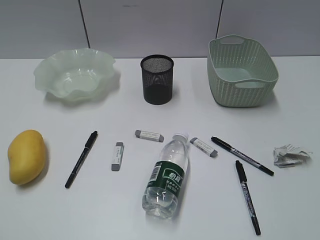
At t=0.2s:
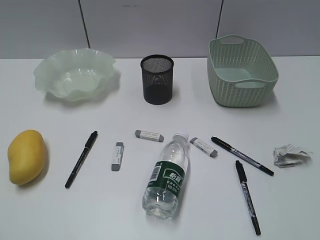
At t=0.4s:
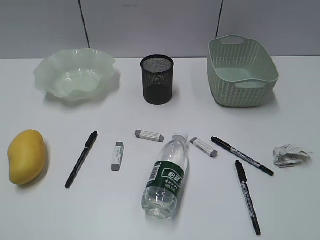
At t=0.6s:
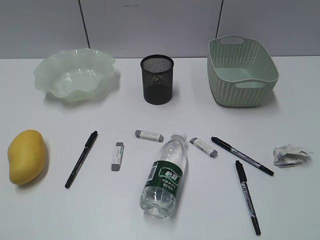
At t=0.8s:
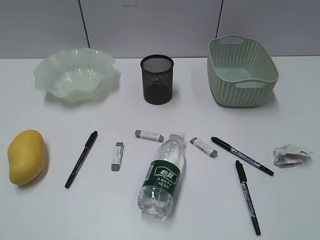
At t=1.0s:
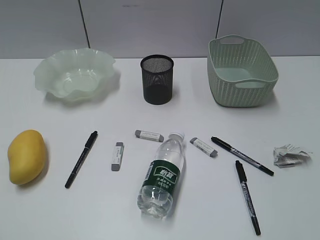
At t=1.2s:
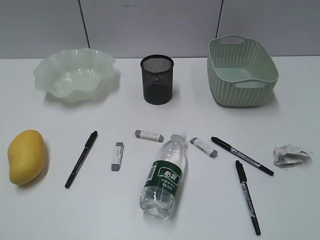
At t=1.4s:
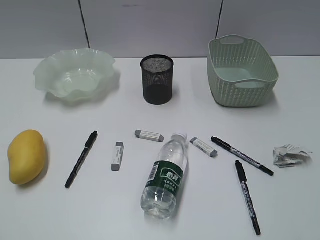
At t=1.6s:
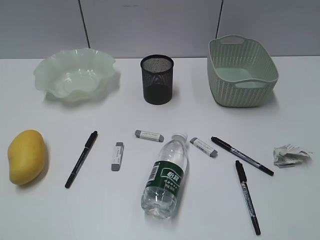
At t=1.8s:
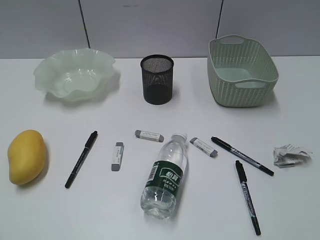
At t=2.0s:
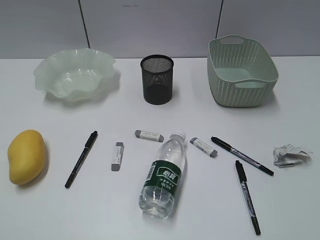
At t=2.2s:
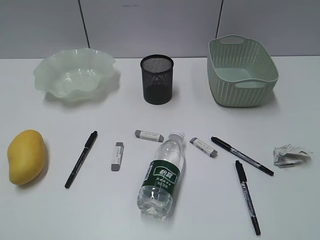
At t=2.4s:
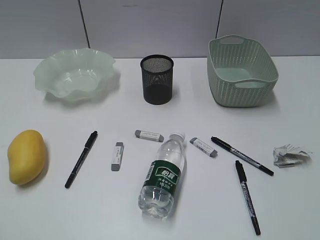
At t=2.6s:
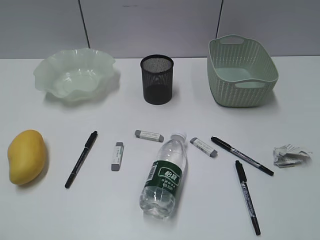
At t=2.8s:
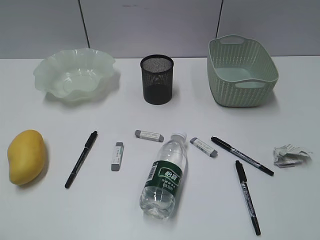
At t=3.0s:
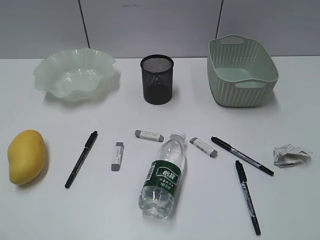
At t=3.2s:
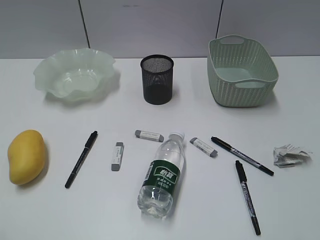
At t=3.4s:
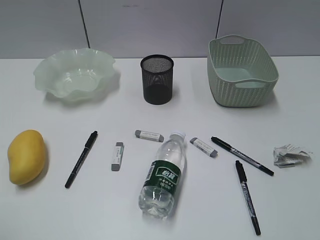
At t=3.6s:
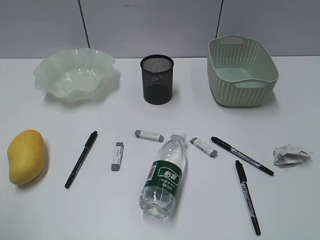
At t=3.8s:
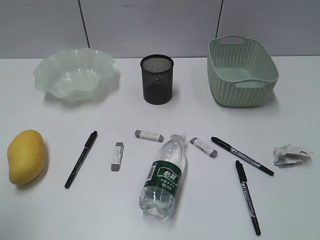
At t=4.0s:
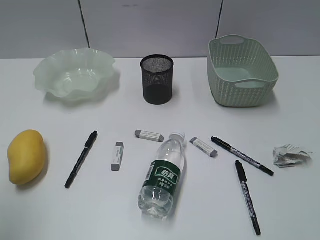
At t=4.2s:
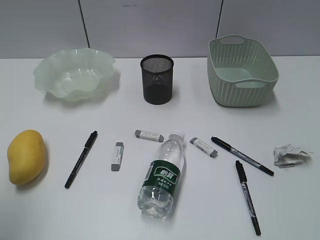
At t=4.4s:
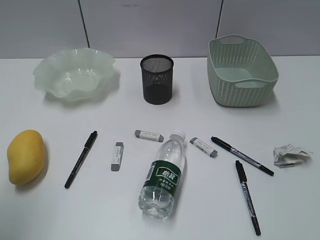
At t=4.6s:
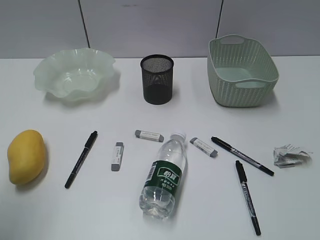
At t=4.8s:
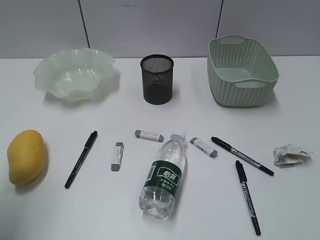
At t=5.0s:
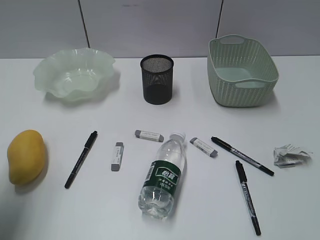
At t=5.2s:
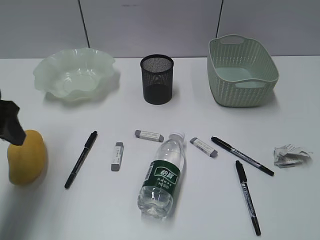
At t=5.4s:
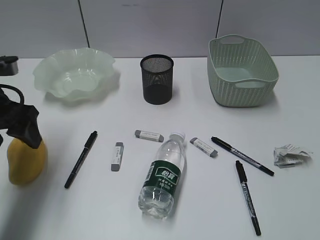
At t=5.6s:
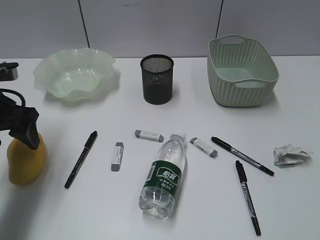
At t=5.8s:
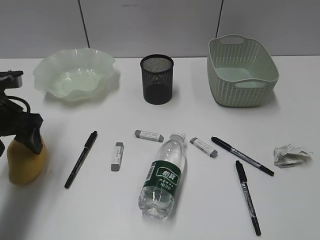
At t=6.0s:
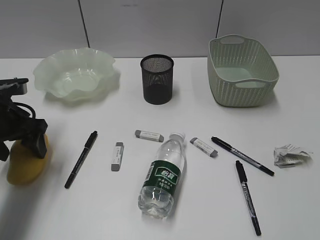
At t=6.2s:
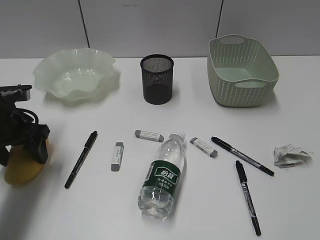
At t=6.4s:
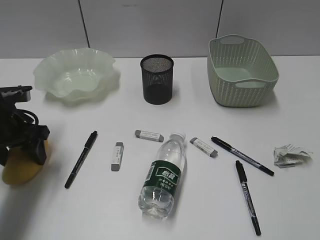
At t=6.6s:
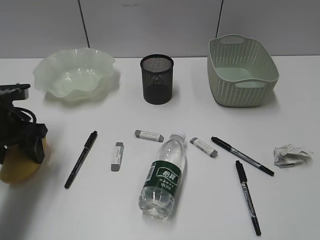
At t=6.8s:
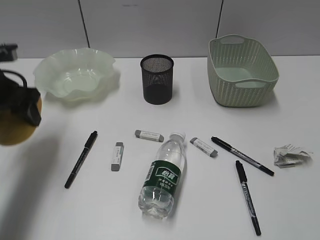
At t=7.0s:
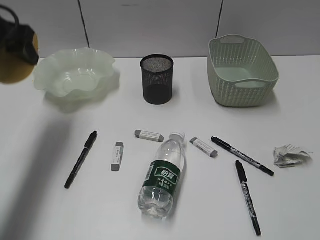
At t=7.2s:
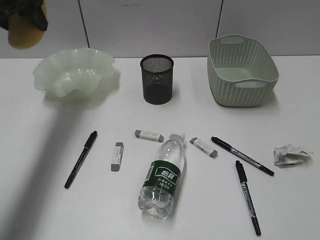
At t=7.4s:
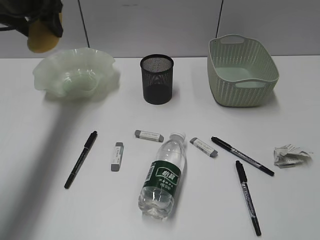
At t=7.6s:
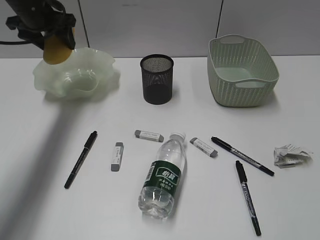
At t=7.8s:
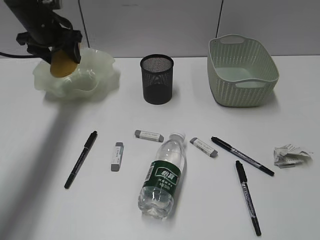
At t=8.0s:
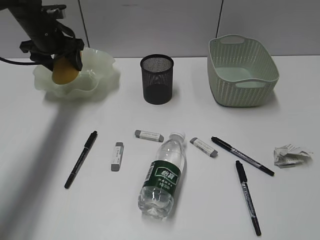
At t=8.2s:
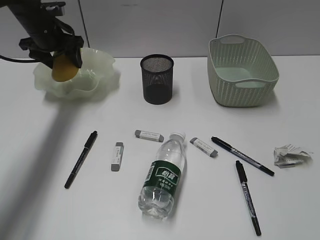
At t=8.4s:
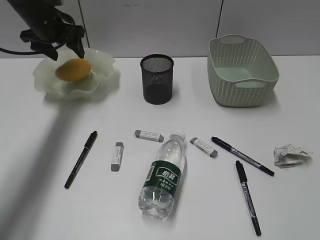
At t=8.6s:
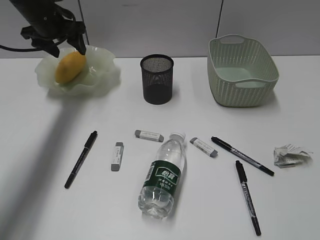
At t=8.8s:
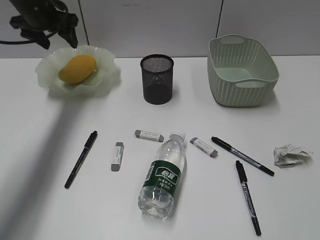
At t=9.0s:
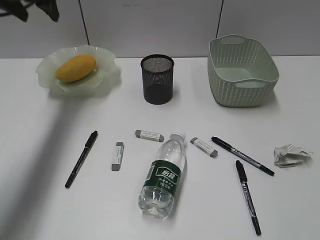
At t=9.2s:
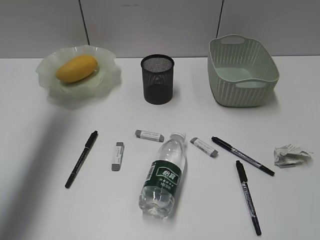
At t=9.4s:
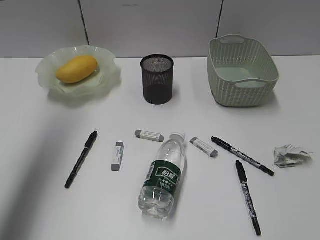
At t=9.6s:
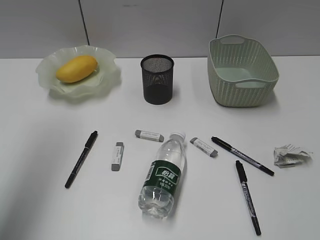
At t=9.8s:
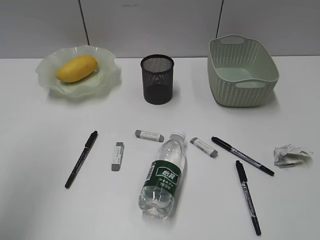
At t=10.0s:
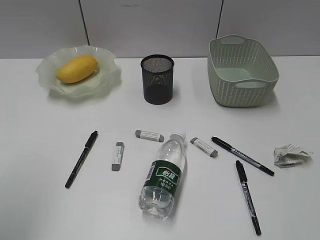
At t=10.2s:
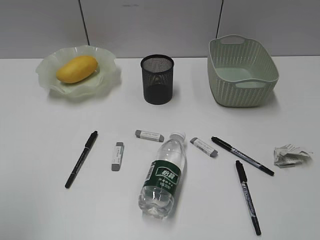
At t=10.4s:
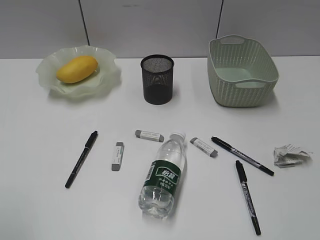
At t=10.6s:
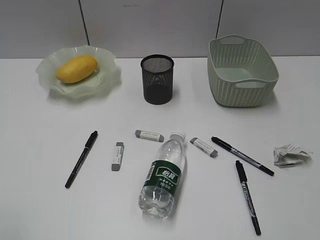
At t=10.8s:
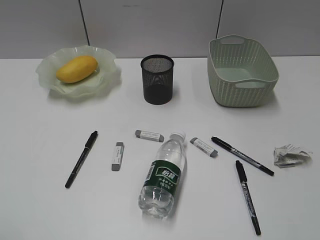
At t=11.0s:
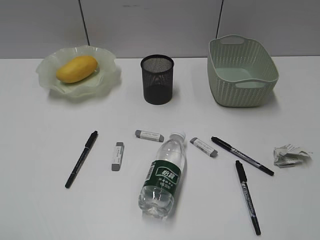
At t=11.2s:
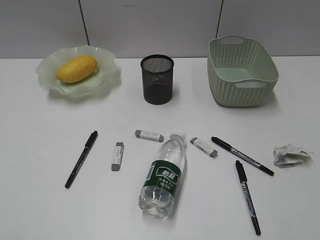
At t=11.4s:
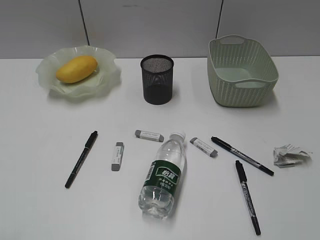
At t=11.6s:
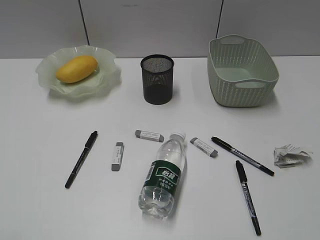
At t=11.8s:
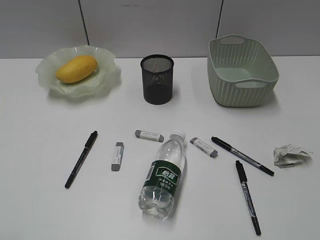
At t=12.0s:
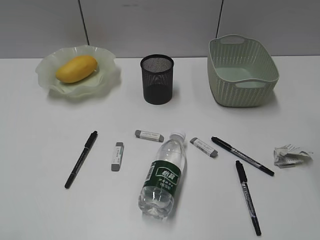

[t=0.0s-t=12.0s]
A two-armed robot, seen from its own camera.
Step, t=5.2s to t=6.4s: Grasp the mango with left gripper.
Step, t=6.6s to t=8.6s: Place the mango in the plate with left gripper.
t=1.6s to t=3.0s: The left gripper opens up.
t=3.0s to t=4.4s: The left gripper goes approximately 15 cm forward.
t=4.4s to t=6.0s: The left gripper goes about 25 cm forward and downward.
t=6.0s to t=7.6s: The left gripper moves forward and upward, some 20 cm.
t=7.6s to t=9.0s: The left gripper goes roughly 10 cm upward.
t=9.0s to t=10.4s: The left gripper moves backward, some 40 cm.

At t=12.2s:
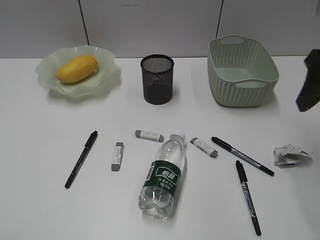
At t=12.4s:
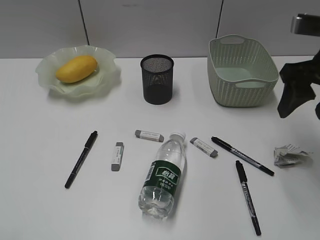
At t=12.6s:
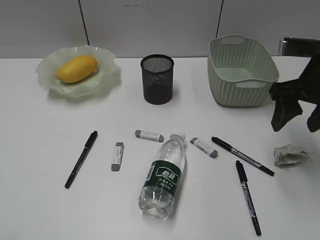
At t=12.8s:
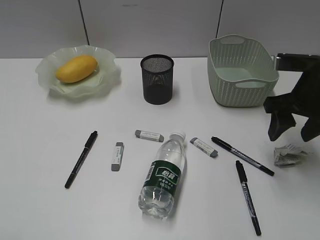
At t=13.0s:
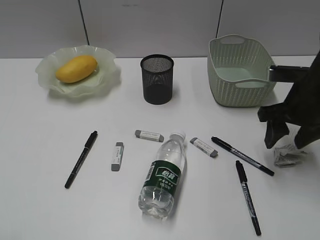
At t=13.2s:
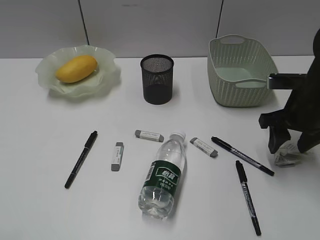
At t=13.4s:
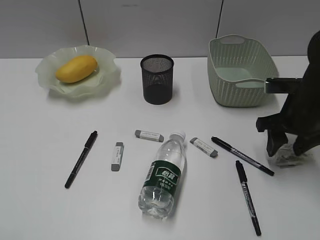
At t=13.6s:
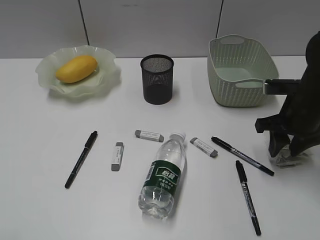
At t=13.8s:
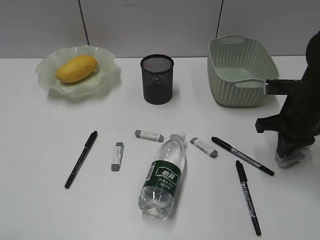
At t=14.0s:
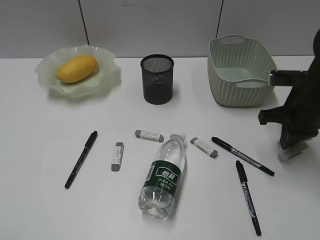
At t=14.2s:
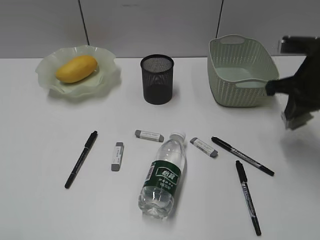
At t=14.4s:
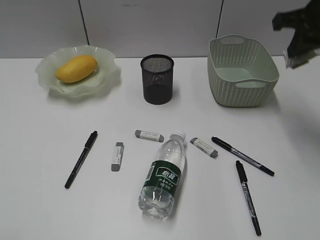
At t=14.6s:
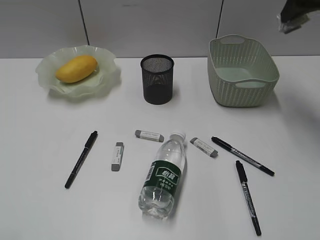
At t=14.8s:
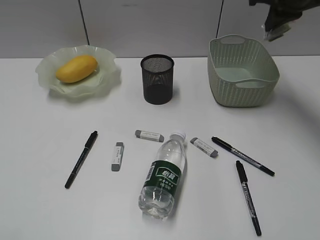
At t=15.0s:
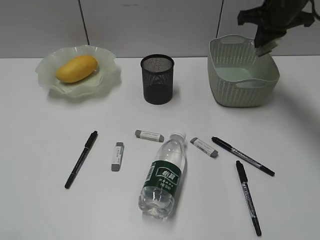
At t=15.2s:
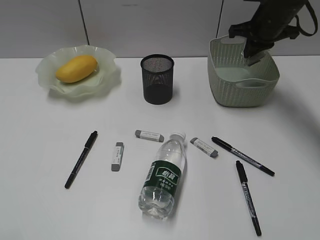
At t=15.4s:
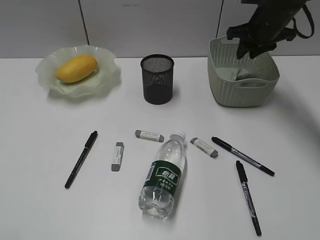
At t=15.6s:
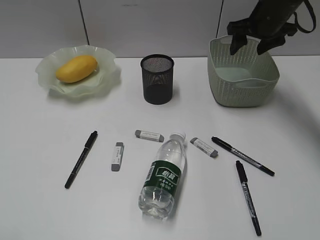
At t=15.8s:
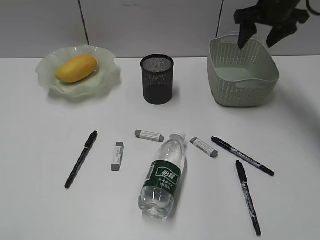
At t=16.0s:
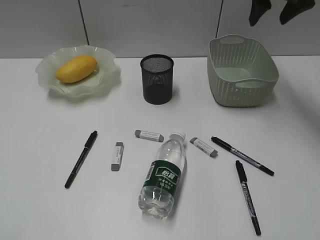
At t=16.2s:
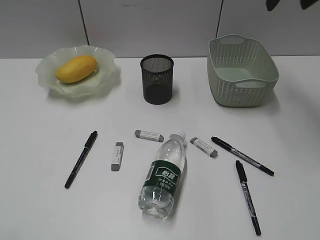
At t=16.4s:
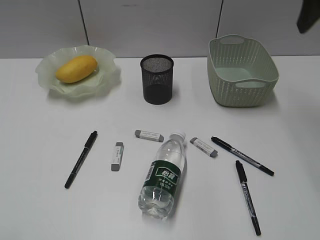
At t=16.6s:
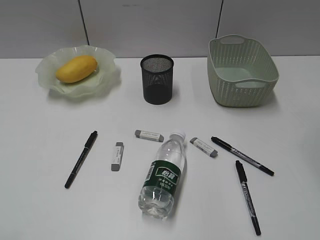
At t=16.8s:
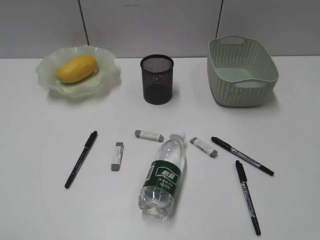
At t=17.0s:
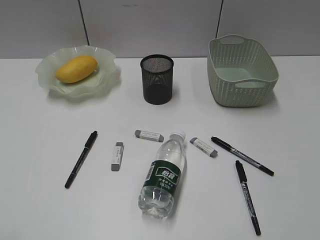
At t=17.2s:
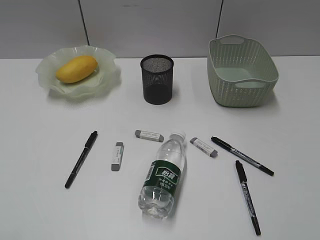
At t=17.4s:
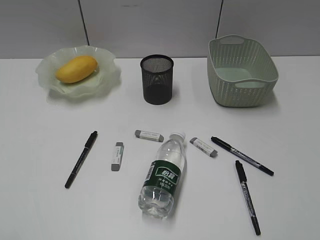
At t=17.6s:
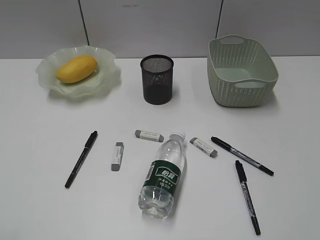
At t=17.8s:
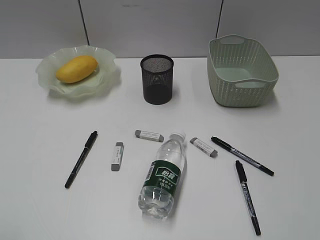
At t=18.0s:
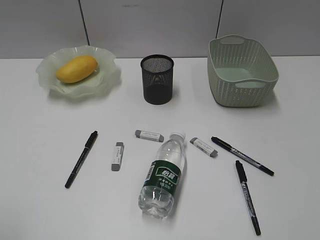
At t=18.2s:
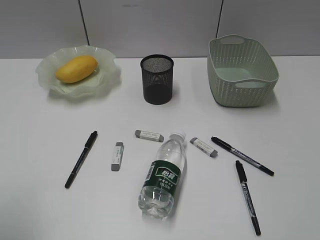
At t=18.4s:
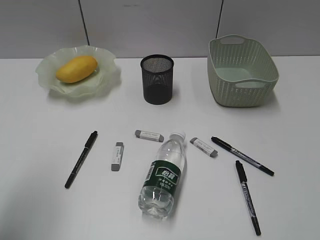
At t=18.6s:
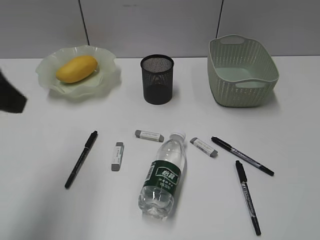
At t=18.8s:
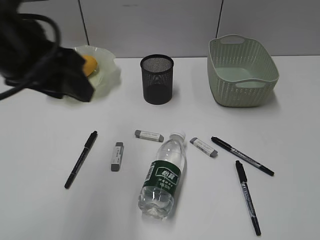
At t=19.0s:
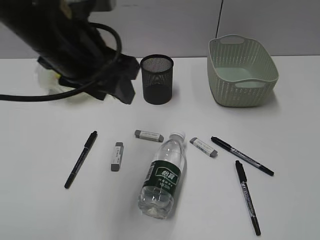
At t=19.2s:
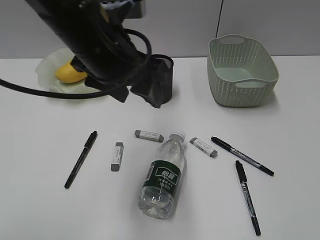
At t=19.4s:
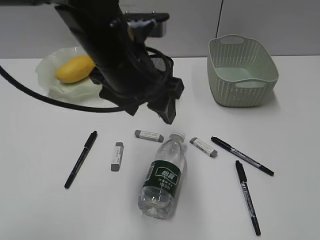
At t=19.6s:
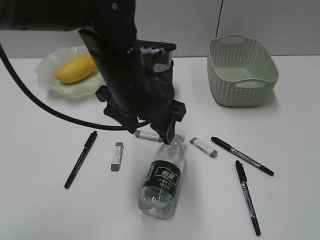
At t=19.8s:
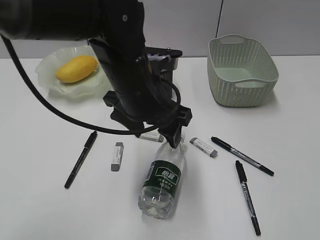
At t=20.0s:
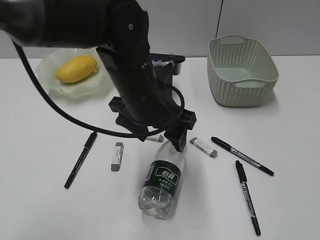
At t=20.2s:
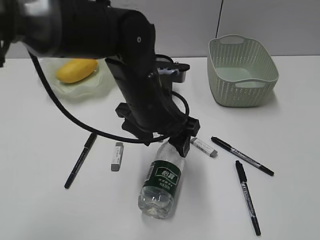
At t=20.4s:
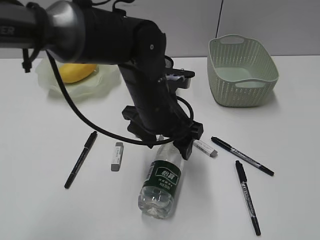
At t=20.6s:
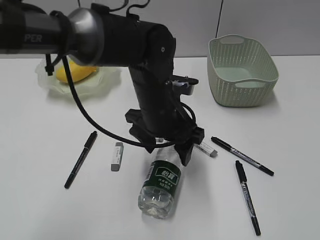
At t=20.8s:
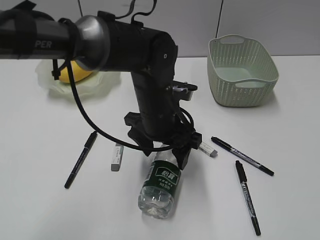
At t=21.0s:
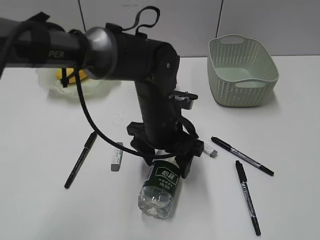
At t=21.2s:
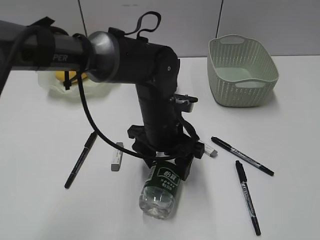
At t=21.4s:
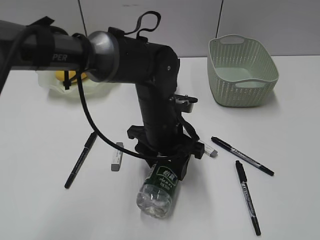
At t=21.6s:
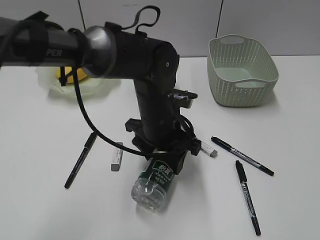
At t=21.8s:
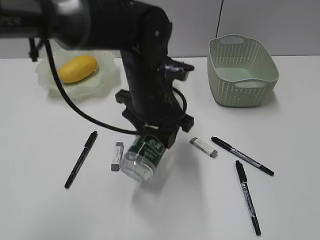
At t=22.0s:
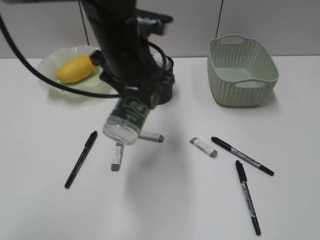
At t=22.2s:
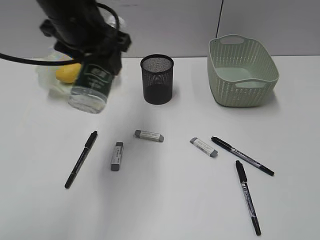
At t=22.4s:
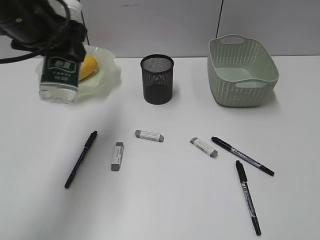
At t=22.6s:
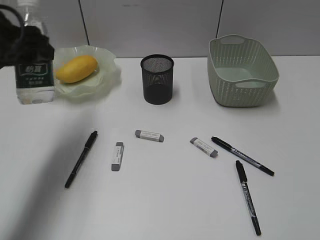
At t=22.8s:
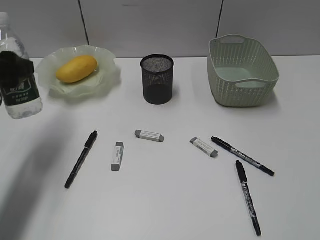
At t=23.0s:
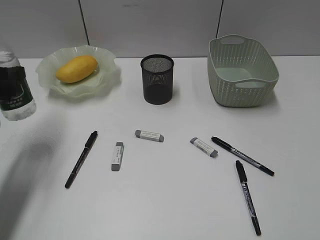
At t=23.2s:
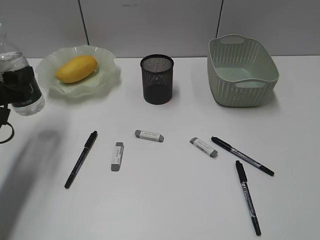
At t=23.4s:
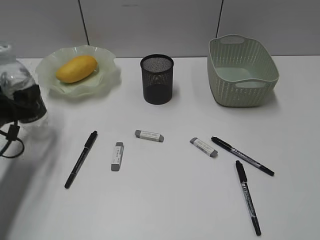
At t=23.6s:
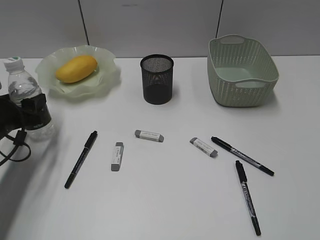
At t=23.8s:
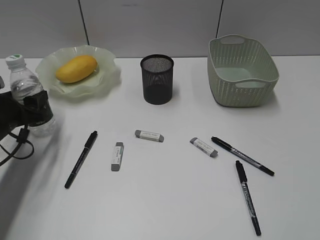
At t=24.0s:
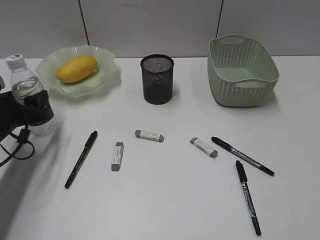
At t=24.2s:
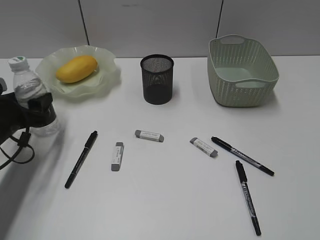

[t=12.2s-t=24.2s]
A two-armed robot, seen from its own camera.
Step, t=14.0s to t=15.6s: Place the waste paper in the basket with right gripper.
Step, t=15.8s to t=21.4s: Grasp the bottle with left gripper.
t=12.2s to t=13.8s: The right gripper is displaced downward by roughly 15 cm, and closes its fingers.
t=13.8s to t=15.2s: The right gripper heads forward and upward, covering roughly 20 cm.
t=15.2s to t=16.6s: The right gripper heads backward and upward, covering roughly 30 cm, and opens its fingers.
t=16.6s to t=18.2s: The left gripper travels forward by roughly 10 cm.
t=18.2s to t=19.8s: The left gripper heads to the right and forward, covering roughly 35 cm.
t=19.8s to t=21.2s: The left gripper travels downward by approximately 10 cm.
t=21.2s to t=22.6s: The left gripper moves to the left and upward, some 30 cm.
t=22.6s to t=24.2s: The left gripper moves downward, about 20 cm.
